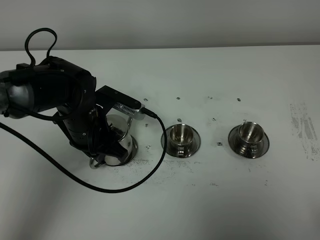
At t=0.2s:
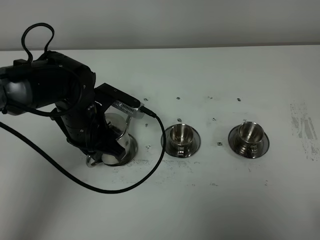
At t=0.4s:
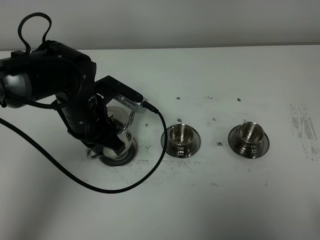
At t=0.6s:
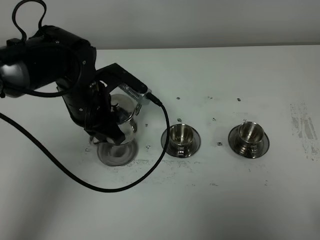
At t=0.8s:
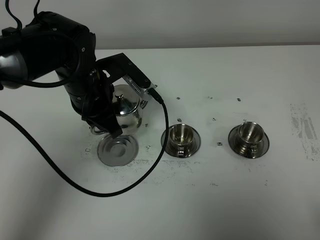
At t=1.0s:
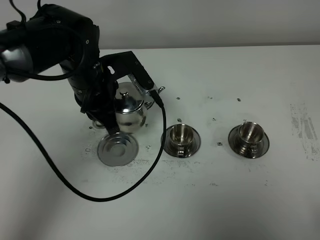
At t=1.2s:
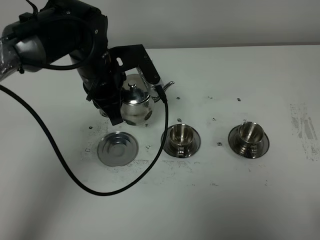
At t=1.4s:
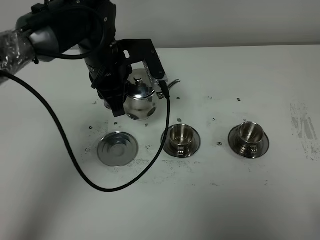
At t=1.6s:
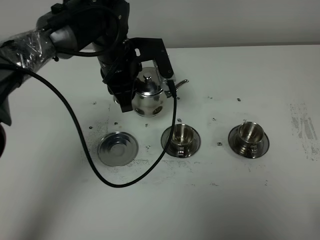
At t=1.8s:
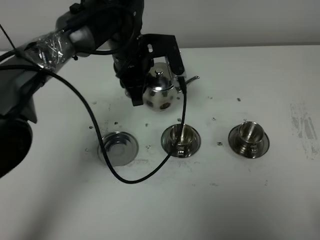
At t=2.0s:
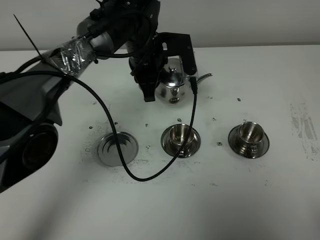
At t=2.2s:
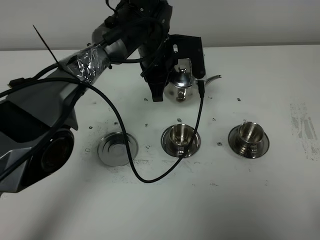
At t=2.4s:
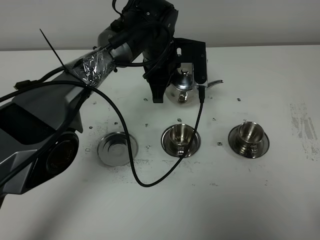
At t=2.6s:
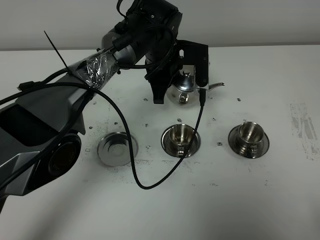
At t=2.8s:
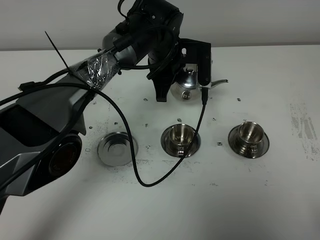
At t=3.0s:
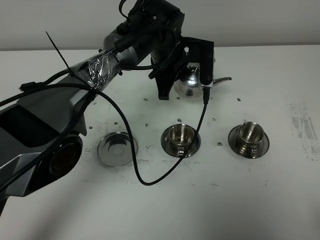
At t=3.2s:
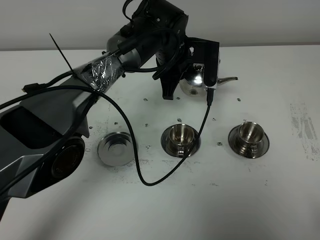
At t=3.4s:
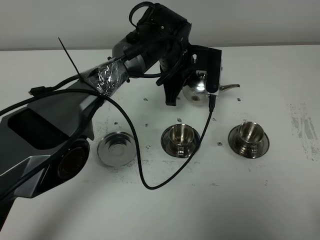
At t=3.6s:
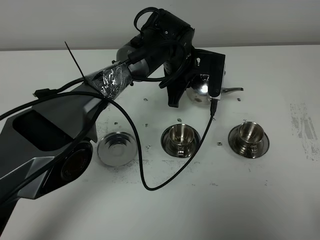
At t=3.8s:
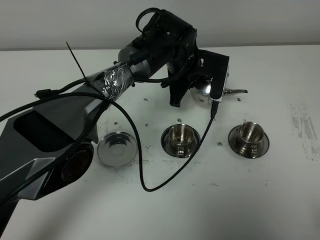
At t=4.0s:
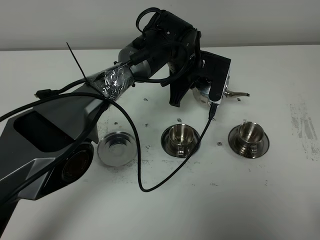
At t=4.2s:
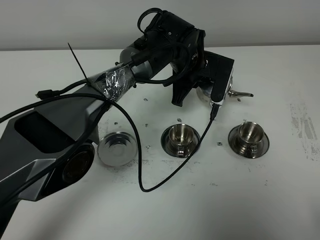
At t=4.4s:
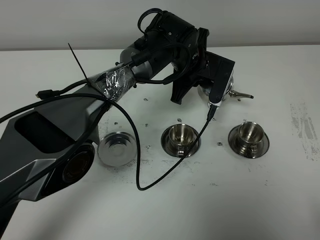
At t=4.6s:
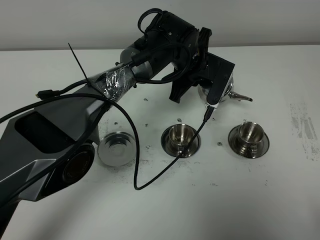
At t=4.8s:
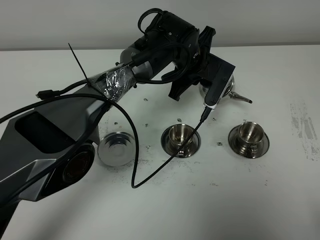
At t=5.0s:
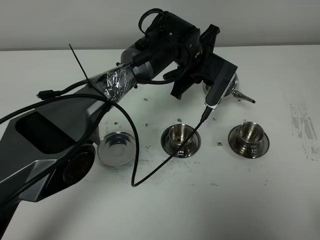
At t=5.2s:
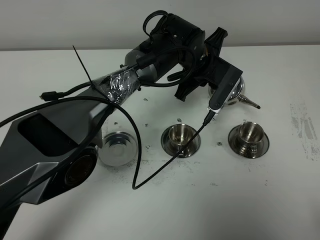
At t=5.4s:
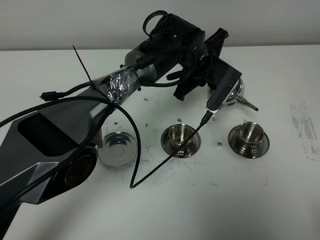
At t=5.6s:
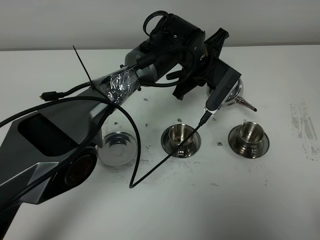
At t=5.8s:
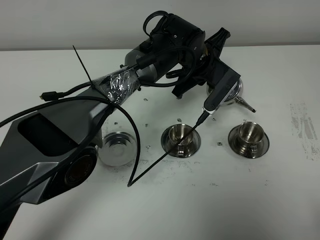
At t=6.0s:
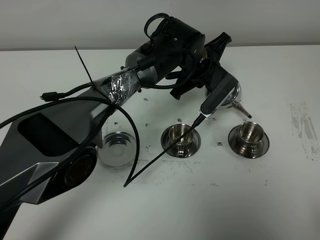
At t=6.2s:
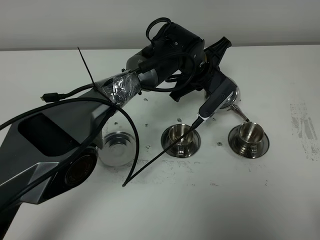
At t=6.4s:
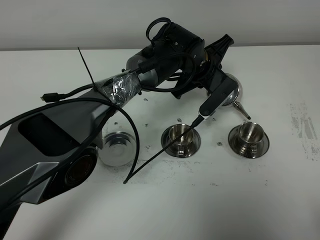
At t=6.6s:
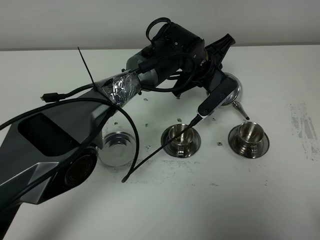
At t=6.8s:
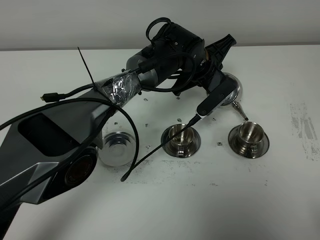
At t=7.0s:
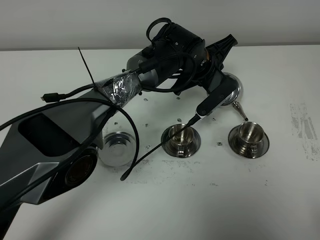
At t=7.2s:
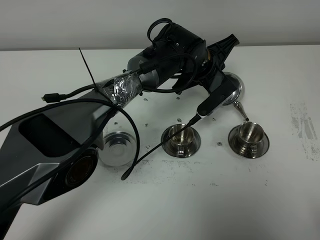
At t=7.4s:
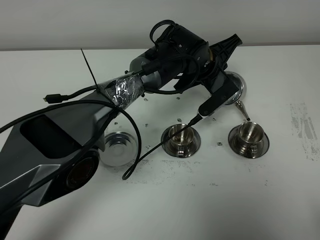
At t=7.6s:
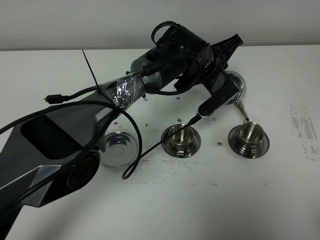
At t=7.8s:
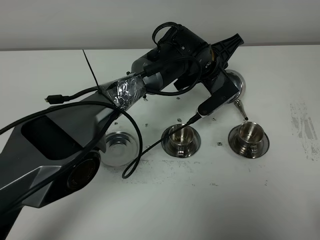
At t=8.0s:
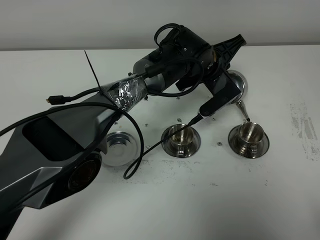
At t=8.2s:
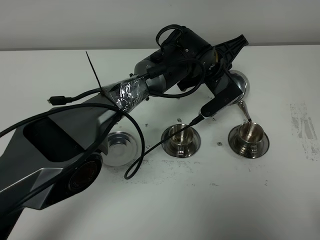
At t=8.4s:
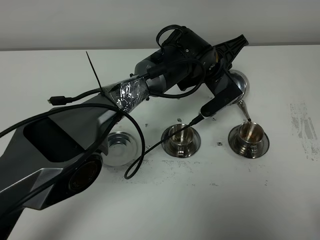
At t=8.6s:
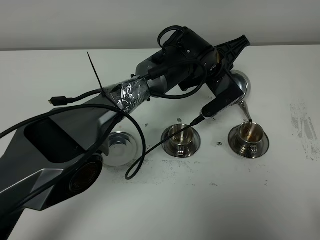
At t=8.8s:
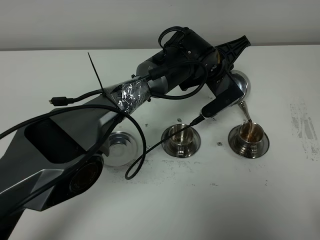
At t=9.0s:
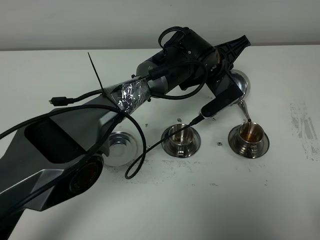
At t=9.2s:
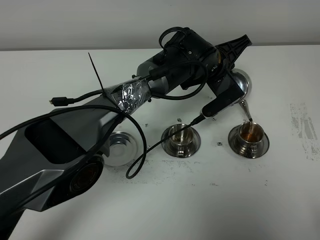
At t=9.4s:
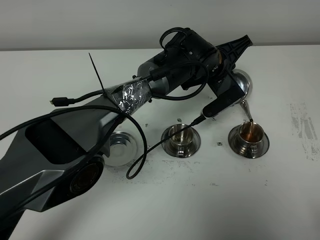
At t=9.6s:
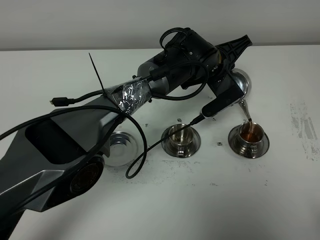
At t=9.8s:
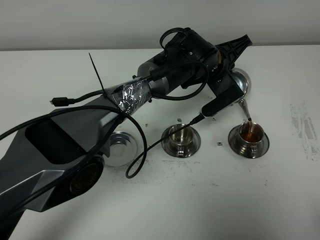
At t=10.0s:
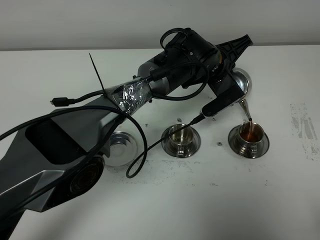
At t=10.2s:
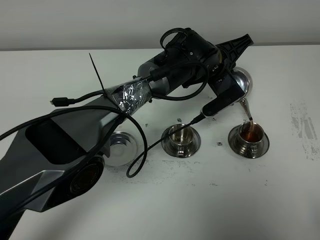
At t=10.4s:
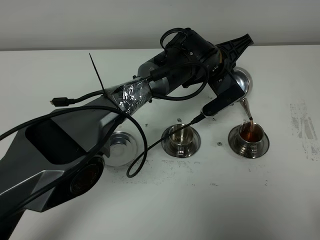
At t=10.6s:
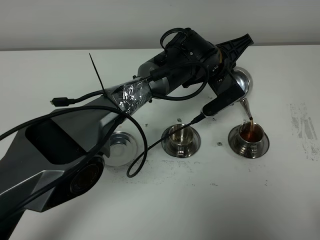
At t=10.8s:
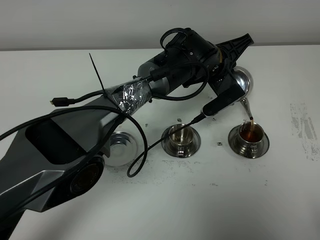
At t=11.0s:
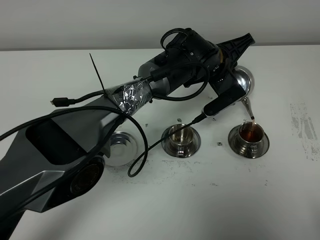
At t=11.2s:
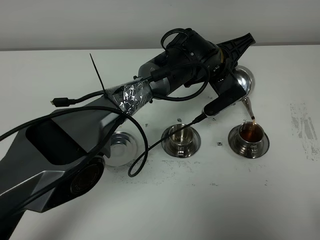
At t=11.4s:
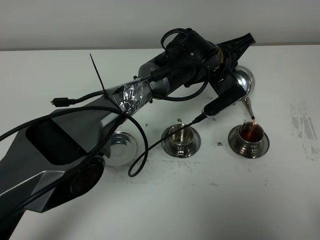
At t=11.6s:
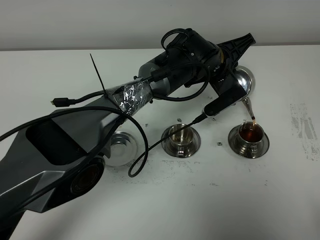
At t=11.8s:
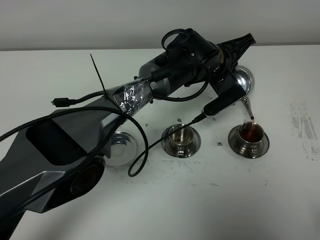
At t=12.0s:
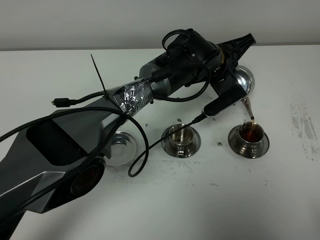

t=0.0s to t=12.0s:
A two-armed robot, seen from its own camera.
Task of the whole recording: grasp the stainless steel teapot and pour the tea into the two stainless steel teacups one by one, put the stainless steel teapot back in its original place.
t=0.0s to t=1.6s: The left gripper heads forward, upward and to the right, covering about 15 cm.
t=1.6s to t=3.0s: The left gripper shifts about 10 cm to the right.
t=6.0s to t=7.6s: The grippers move only a little.
t=7.6s to t=9.0s: Both grippers stay about where they are.
t=9.0s to t=12.0s: The two grippers keep their place.

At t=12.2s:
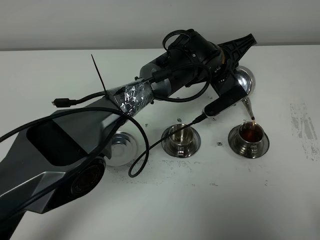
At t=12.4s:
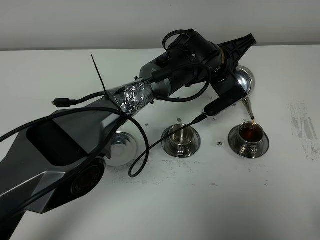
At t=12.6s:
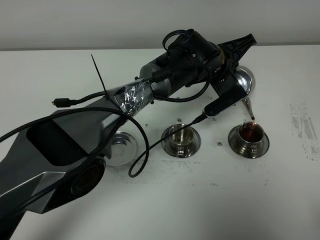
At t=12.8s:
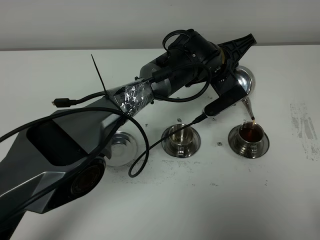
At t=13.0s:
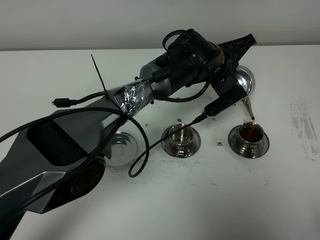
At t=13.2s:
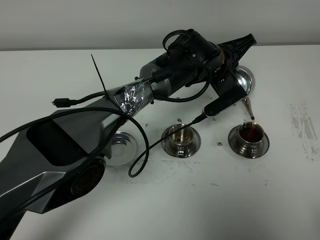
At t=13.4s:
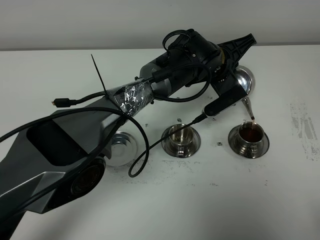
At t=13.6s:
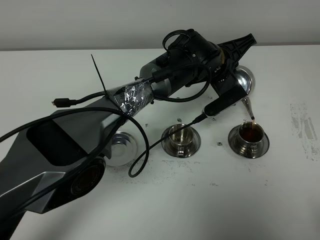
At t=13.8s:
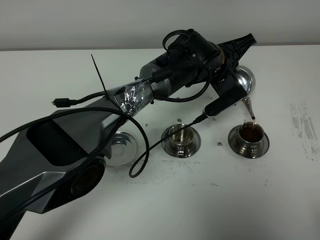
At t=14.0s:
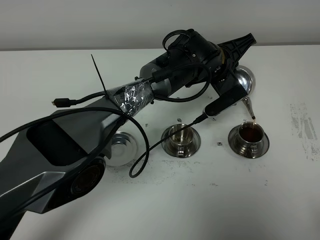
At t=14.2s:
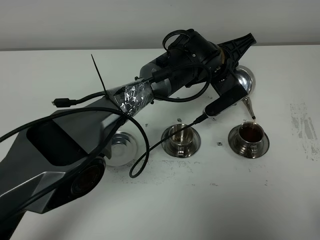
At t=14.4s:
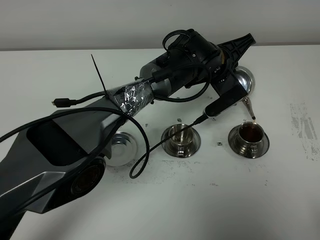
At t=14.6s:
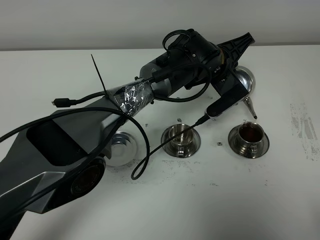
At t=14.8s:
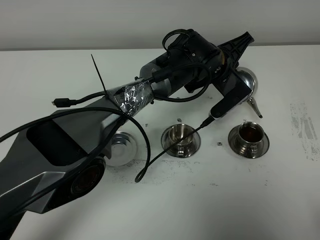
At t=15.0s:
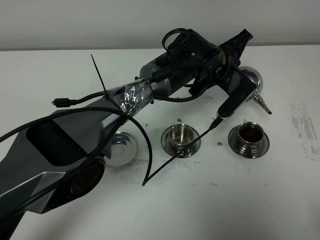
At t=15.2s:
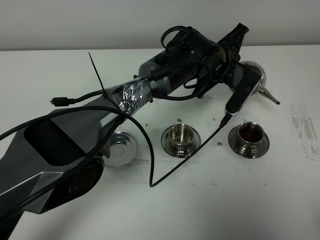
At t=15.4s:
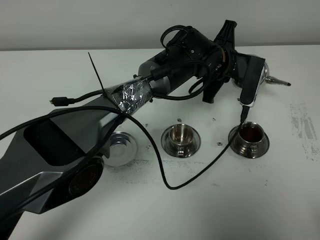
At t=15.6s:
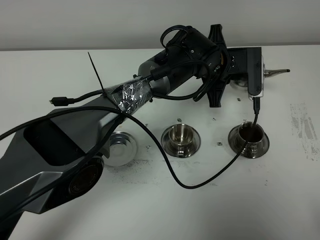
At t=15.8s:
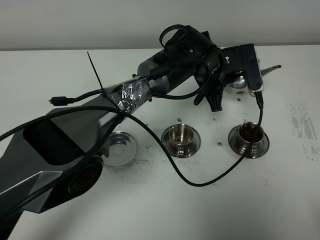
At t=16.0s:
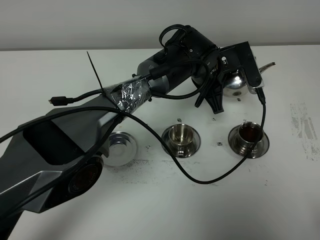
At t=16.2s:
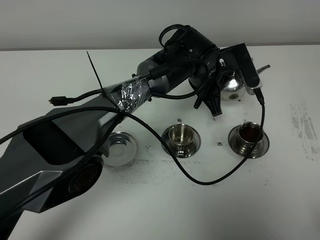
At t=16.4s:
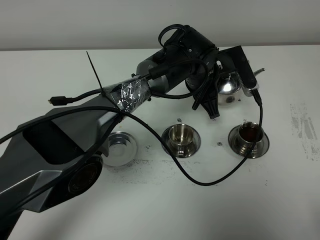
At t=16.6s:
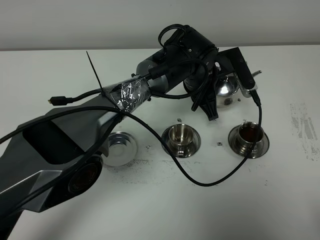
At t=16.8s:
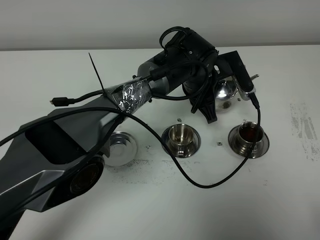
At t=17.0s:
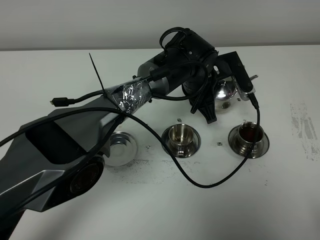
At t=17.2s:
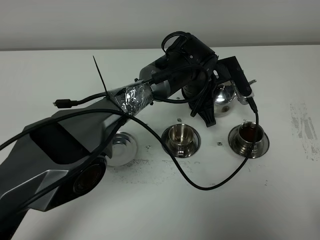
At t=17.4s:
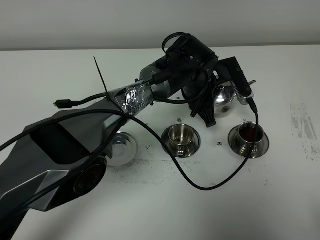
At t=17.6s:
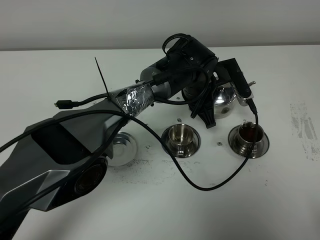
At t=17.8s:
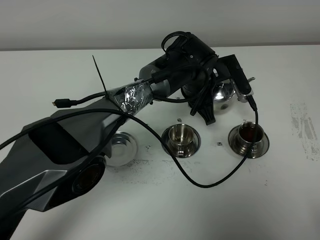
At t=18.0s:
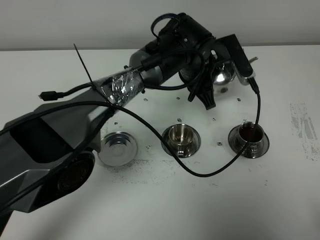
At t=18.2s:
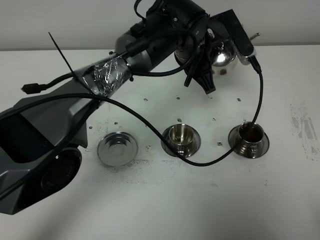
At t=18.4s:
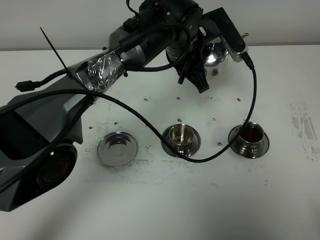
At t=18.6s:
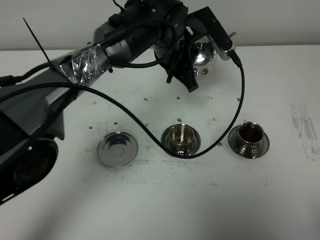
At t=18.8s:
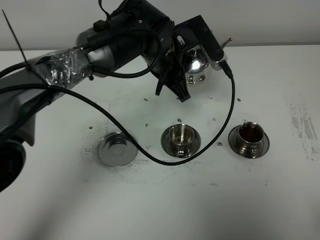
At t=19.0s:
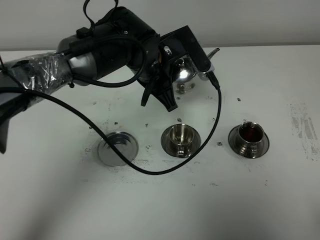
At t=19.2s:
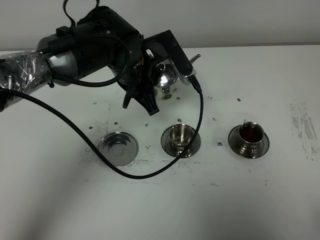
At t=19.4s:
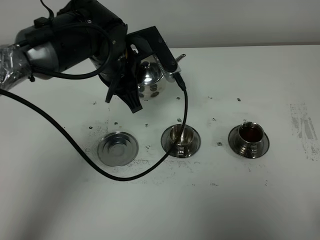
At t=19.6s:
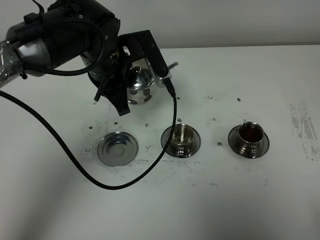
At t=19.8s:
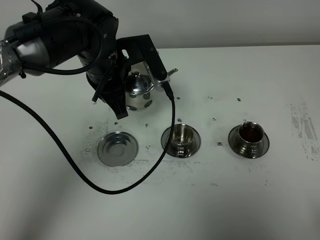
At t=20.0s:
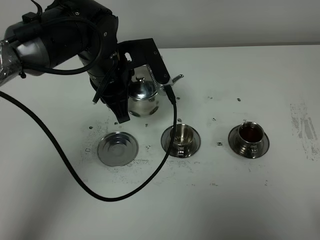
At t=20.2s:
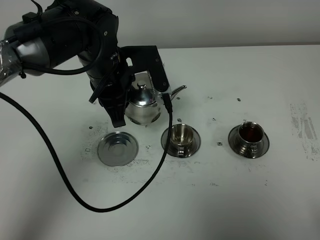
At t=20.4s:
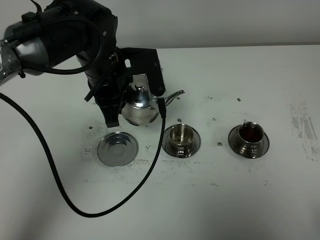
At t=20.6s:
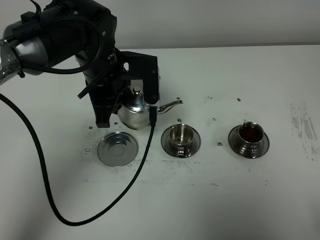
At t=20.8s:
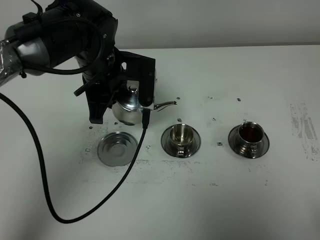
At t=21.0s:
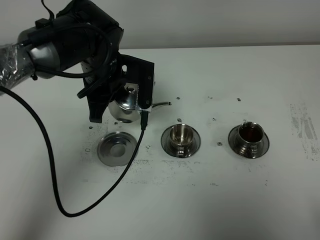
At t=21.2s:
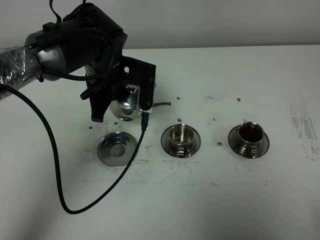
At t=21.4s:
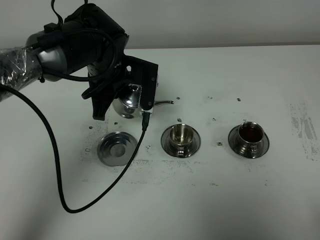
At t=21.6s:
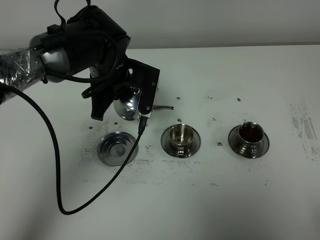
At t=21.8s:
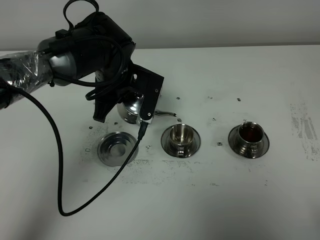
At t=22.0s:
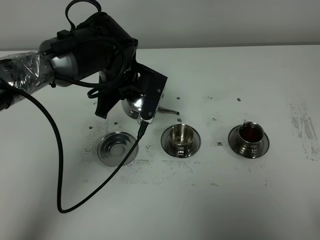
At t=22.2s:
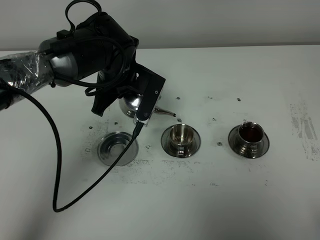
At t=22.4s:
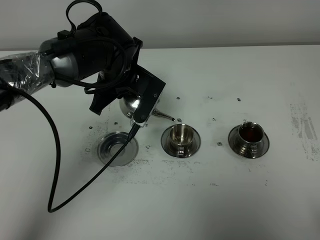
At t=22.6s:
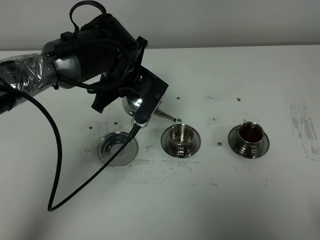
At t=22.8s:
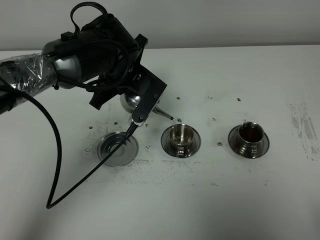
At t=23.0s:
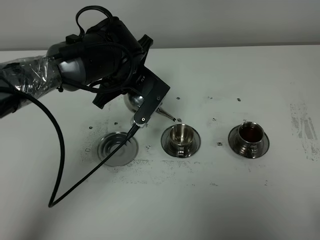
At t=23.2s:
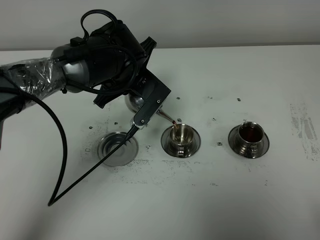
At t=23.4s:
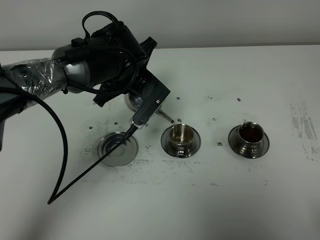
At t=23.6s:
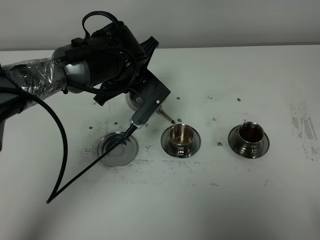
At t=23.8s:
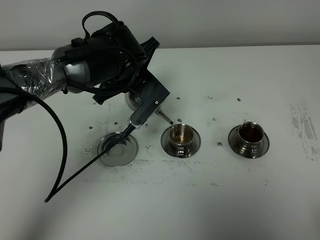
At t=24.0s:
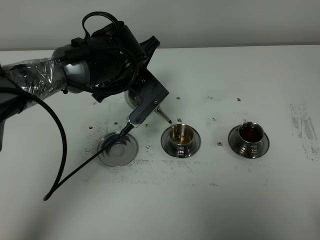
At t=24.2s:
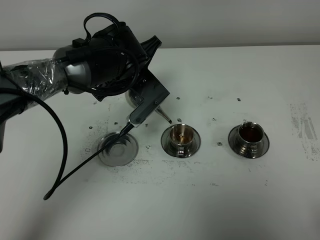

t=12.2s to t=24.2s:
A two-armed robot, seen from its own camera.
Task of the whole recording: grasp the stainless steel teapot and pour the tea into the two stainless steel teacups one by one, put the stainless steel teapot back in its original place.
t=12.2s to t=13.8s: Both grippers stay put.
t=16.6s to t=18.2s: The left gripper shifts roughly 5 cm upward.
t=18.2s to t=19.8s: The left gripper shifts some 15 cm to the left.
t=22.6s to t=24.2s: The grippers stay close to where they were, moving slightly.
